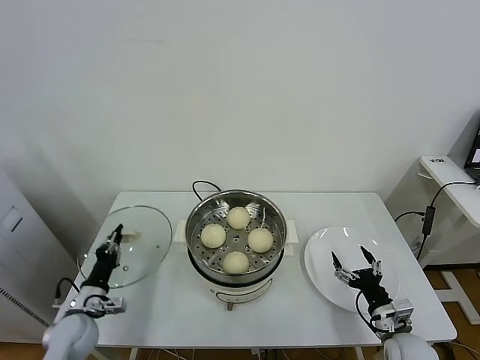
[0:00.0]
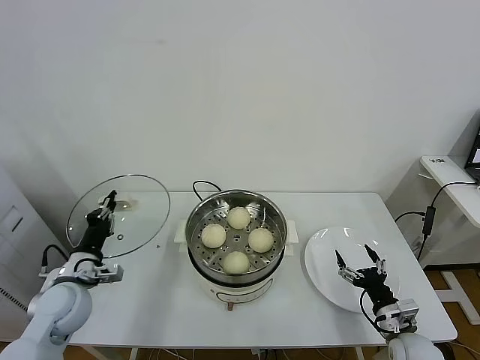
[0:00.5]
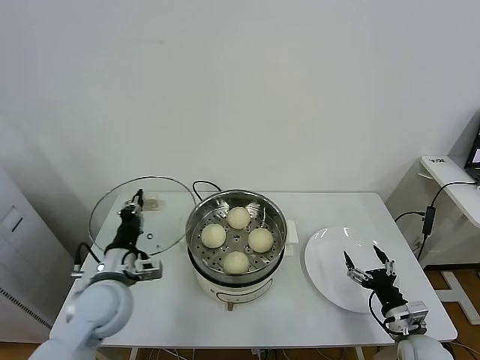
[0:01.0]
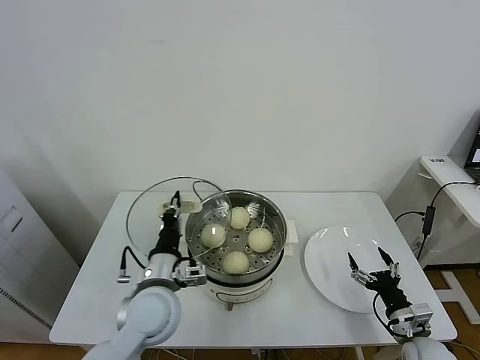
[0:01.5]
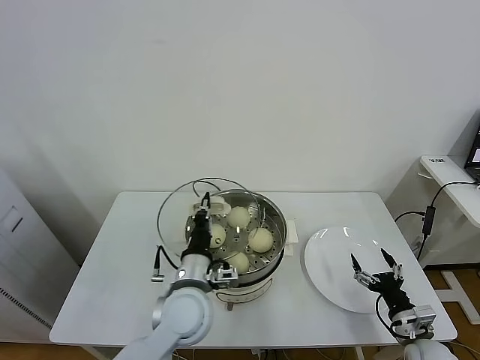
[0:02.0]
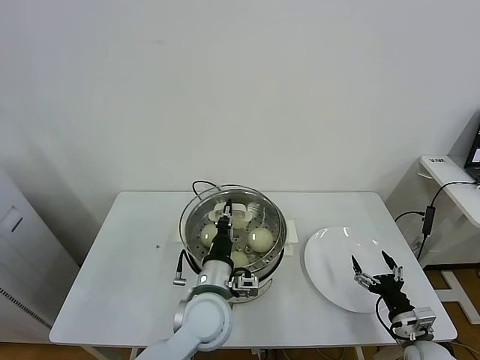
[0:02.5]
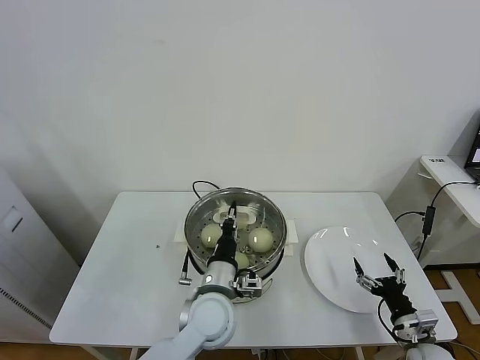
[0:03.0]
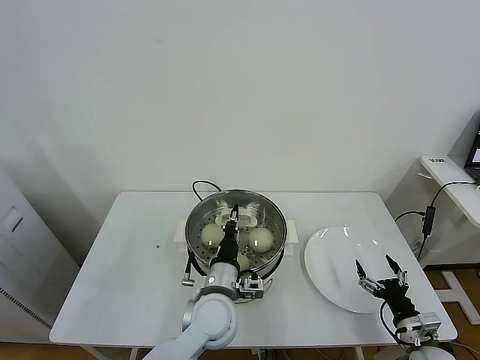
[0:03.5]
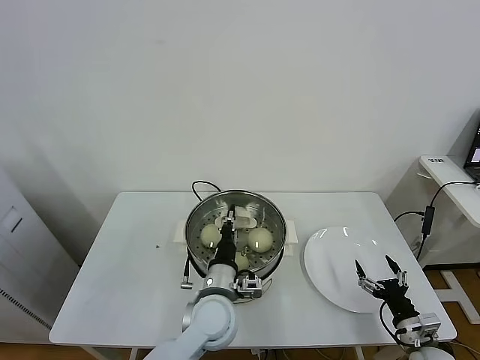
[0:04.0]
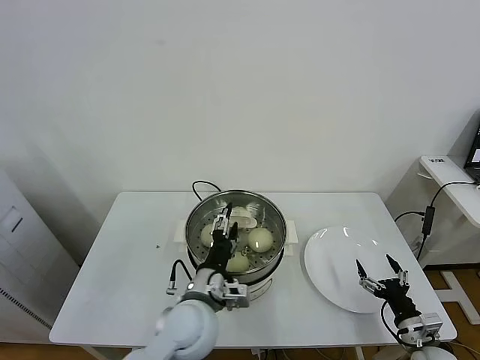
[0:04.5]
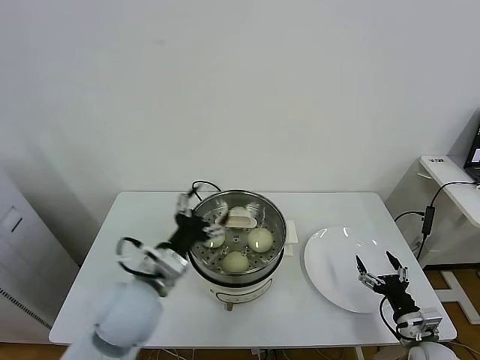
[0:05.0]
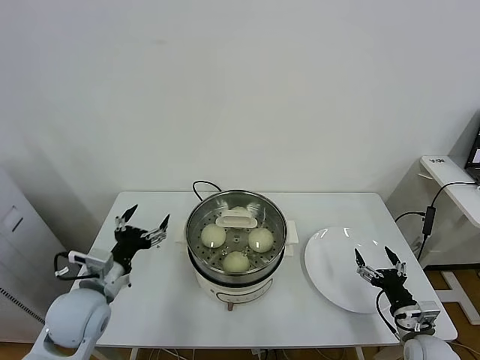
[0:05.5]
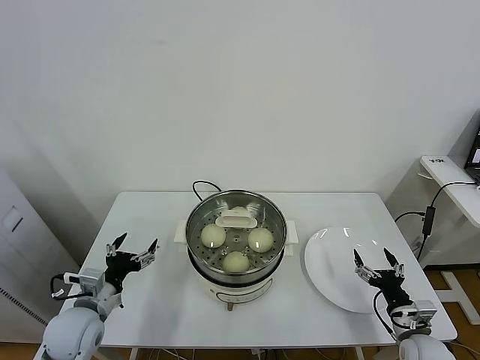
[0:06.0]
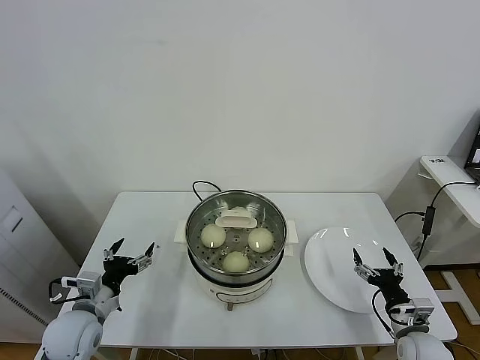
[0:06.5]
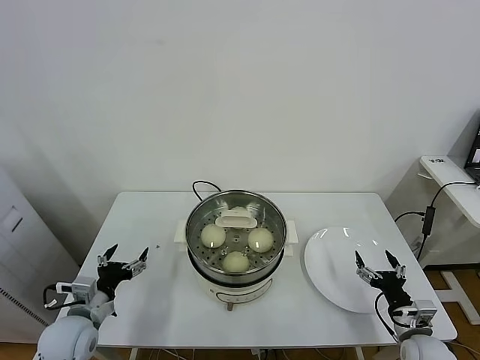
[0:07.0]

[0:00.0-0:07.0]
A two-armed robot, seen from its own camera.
Task of the whole recording: take steamed baozi put them in steamer.
Step, 0.0 to 4.5 s: Place the pot lid on the steamer with left gripper.
0.0 to 2.0 s: The left gripper goes some 30 cm to the right and upward.
2.0 to 3.5 s: The left gripper ends up roughly 5 cm from where it was.
3.5 to 5.0 s: The left gripper travels to the left and upward by some 15 cm, and opens up.
5.0 to 7.0 s: The left gripper shifts roughly 20 cm to the left and downward.

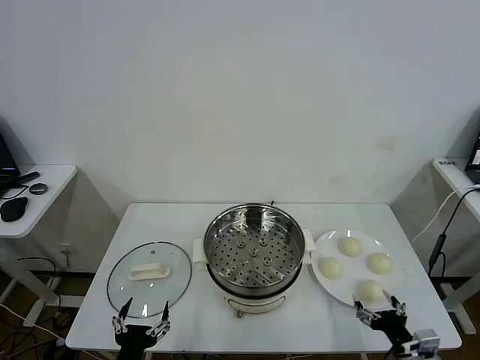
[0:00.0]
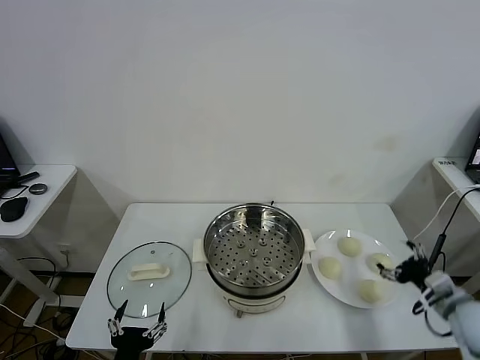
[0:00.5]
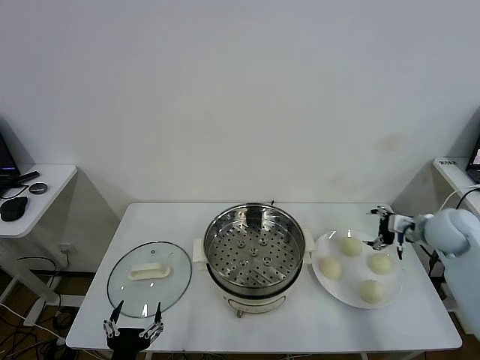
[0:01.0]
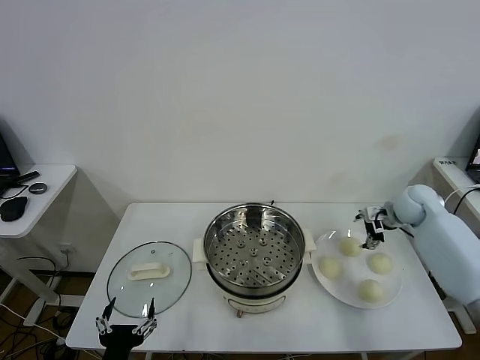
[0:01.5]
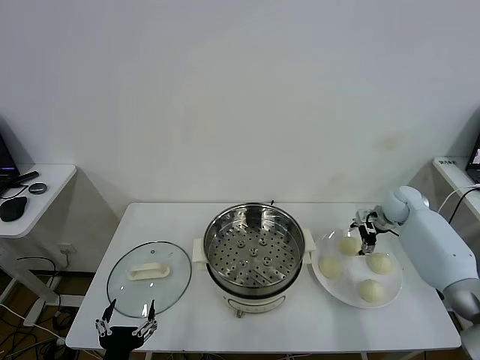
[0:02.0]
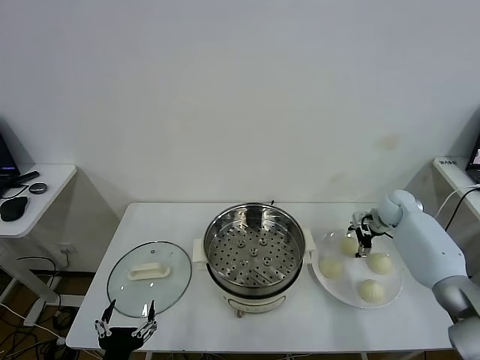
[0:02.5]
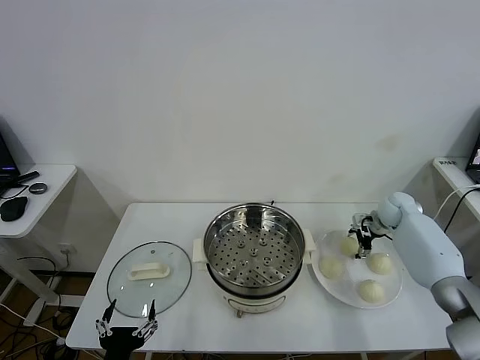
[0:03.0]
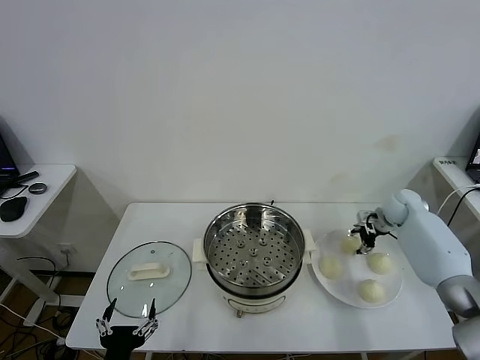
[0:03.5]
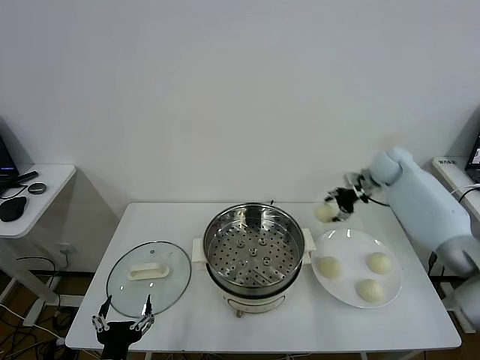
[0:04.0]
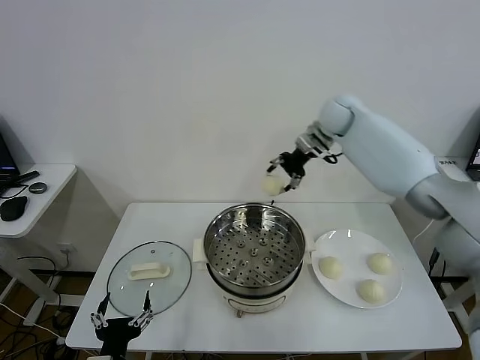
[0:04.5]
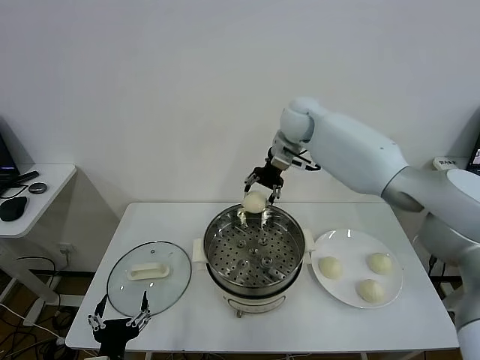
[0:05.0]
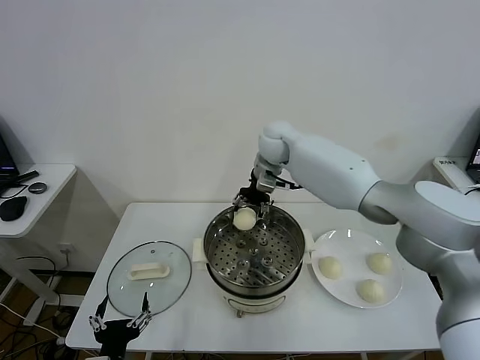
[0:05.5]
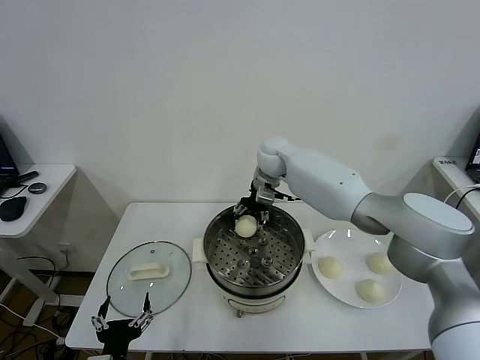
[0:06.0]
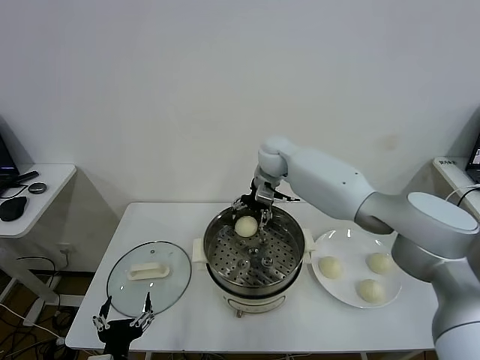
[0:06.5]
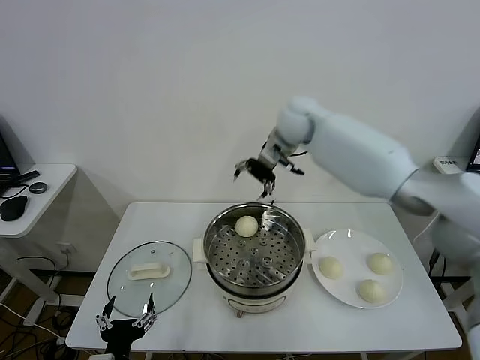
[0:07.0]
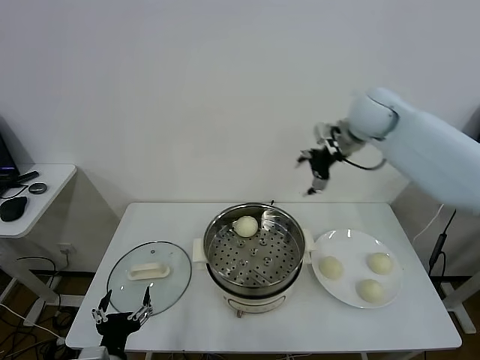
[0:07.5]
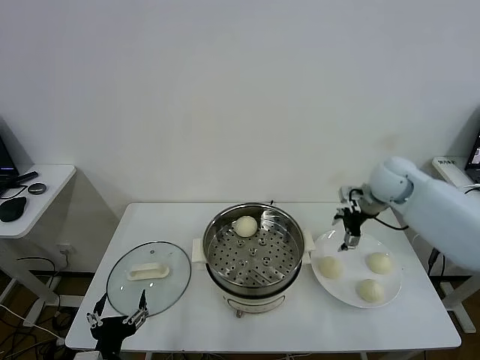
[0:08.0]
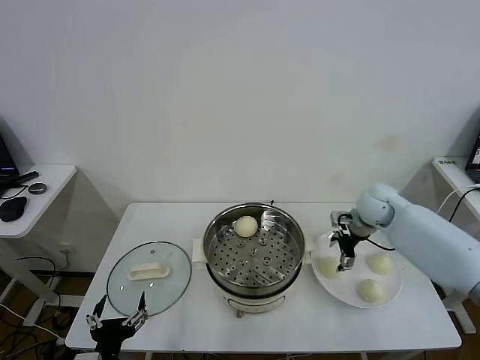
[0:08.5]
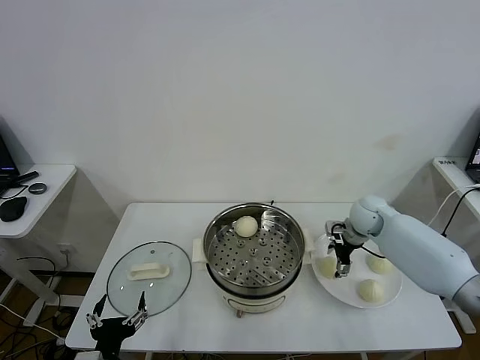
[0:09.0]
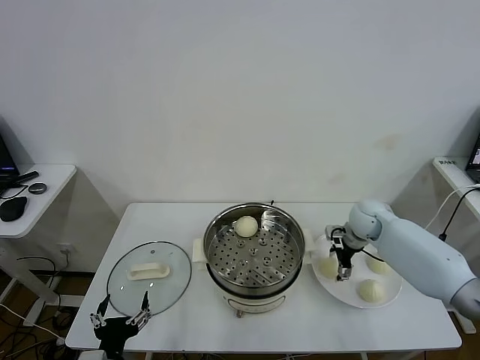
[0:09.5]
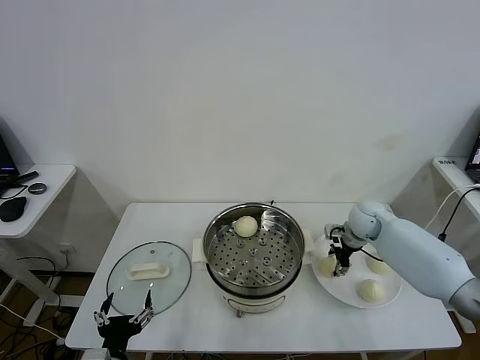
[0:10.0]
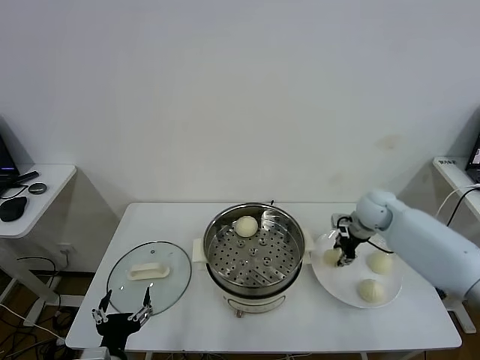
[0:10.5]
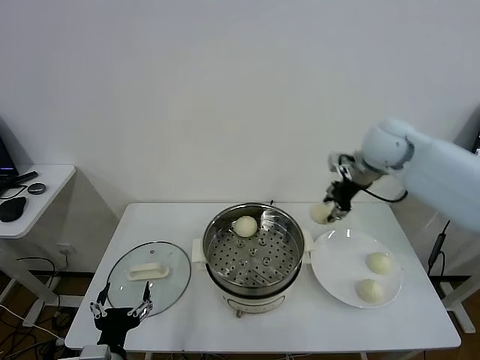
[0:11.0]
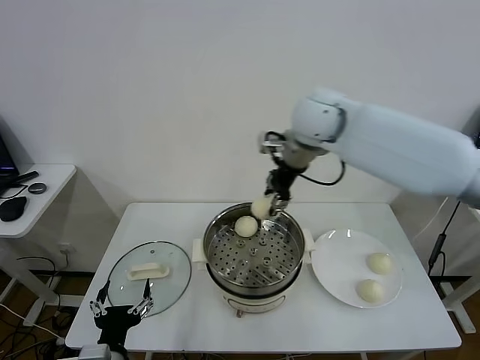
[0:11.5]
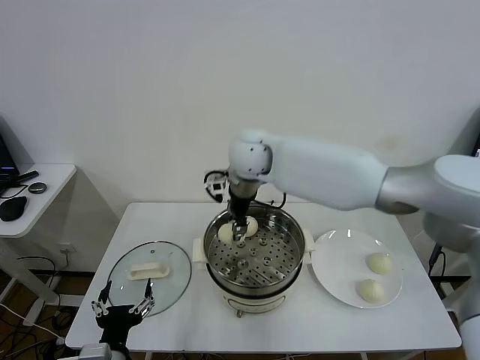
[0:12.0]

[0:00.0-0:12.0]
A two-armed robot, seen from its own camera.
Task of the whole recording: take steamed baozi put them in steamer.
Step, 0.0 to 3.0 s: Grasp the baozi in the plate with right gripper.
Step, 3.5 to 6.5 s: Place the baozi on the steamer with right gripper.
Step, 7.0 to 9.5 s: Grasp the baozi in the plate with right gripper.
2.0 to 4.0 s: The right gripper moves upward, to the left and forward, approximately 20 cm, and closes up.
4.0 to 6.0 s: The right gripper shifts some 25 cm to the left.
6.0 to 8.0 s: The right gripper travels to the right by about 25 cm, and opens up.
8.0 to 10.0 s: The right gripper heads downward, covering roughly 10 cm, and closes its fingers.
10.0 to 12.0 s: The right gripper heads to the left and upward, covering about 35 cm.

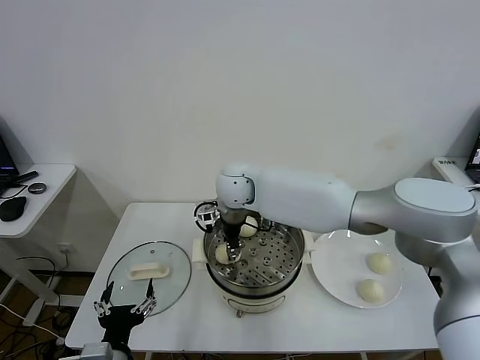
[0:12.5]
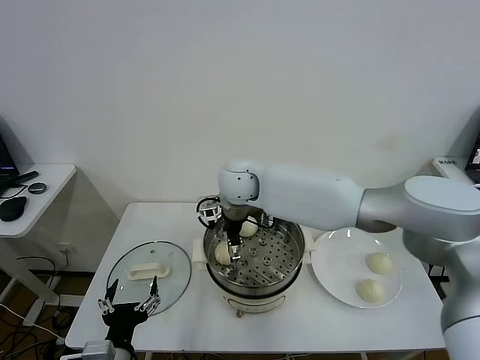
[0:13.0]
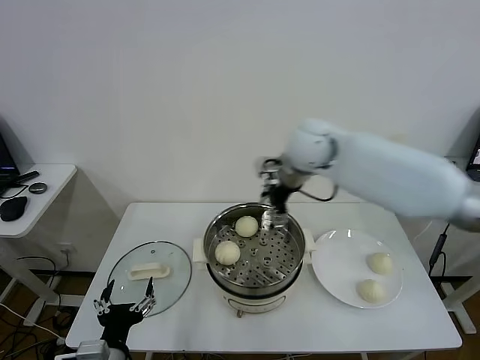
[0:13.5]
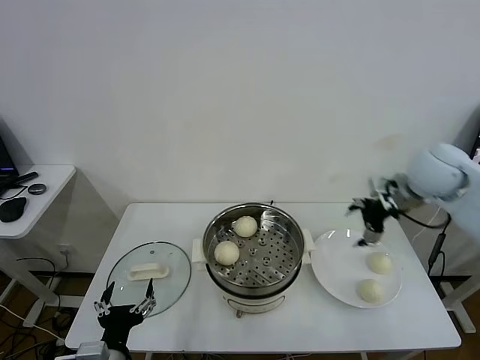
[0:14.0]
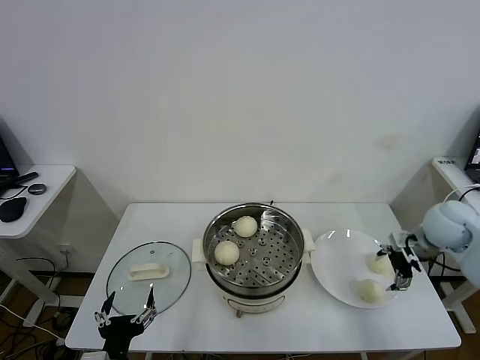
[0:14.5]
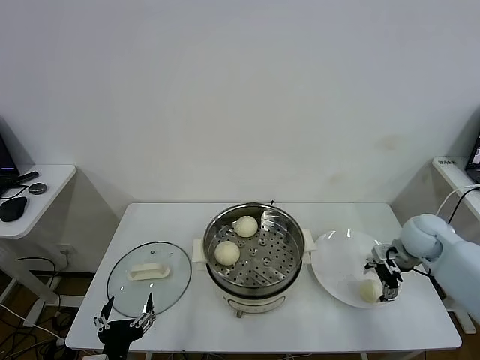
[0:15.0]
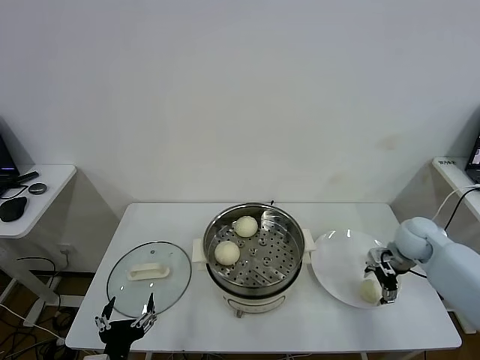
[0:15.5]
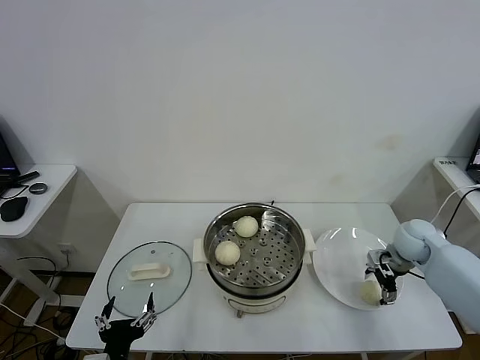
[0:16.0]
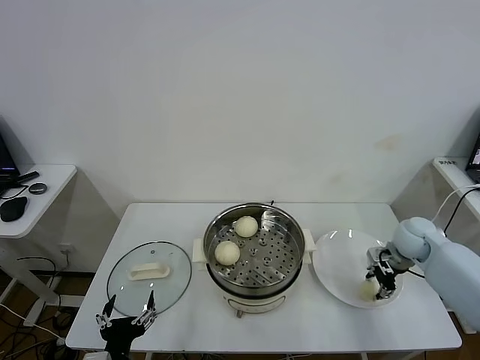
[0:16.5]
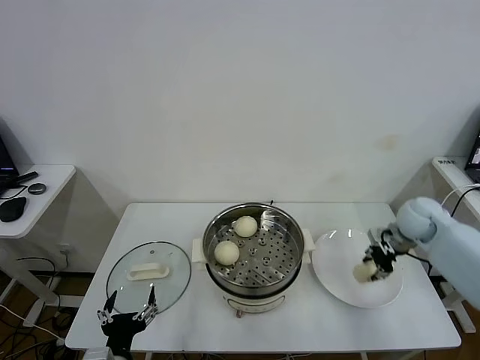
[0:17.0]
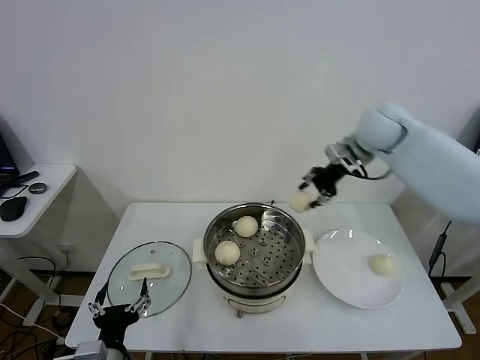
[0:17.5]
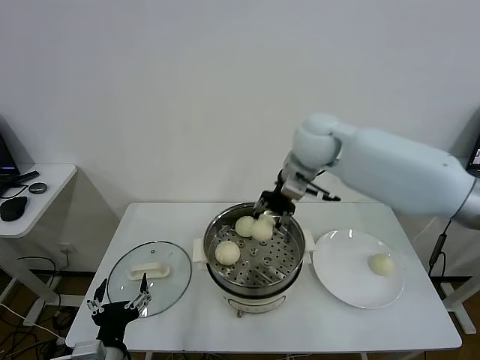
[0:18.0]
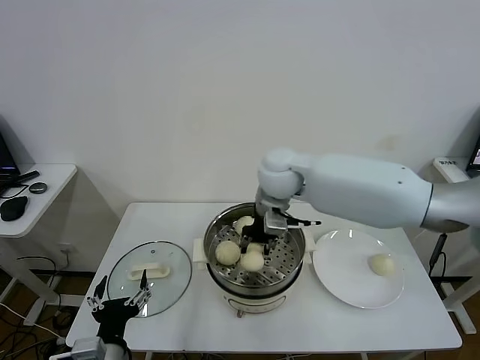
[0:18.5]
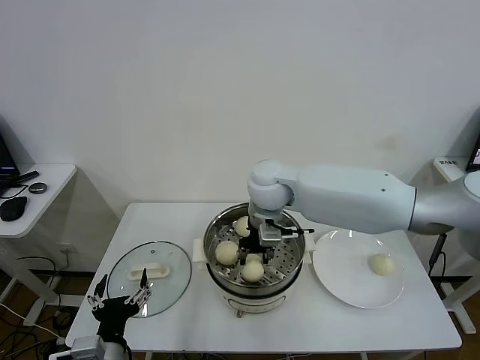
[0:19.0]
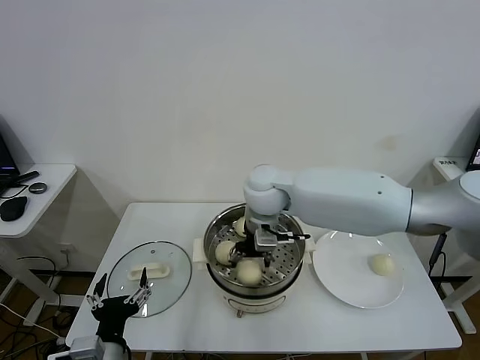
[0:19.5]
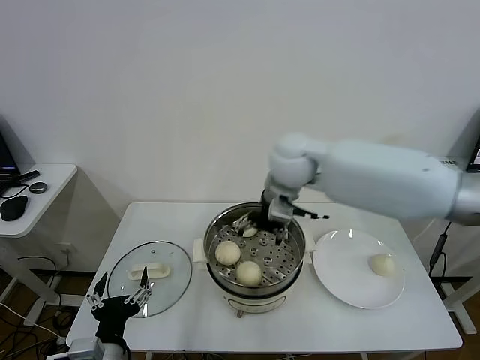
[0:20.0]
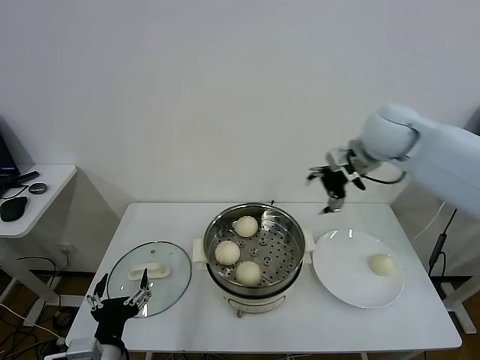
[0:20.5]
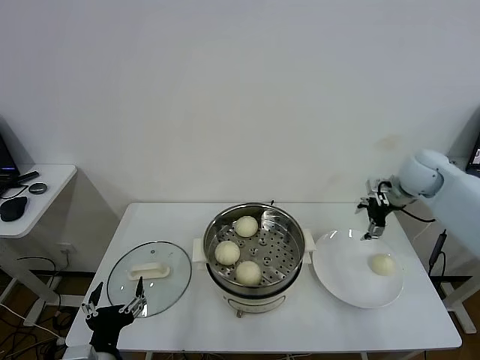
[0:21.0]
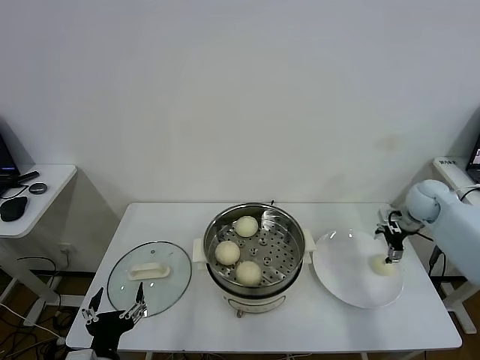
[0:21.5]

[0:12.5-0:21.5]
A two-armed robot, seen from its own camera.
Task of the whole recording: take steamed baozi put them in steamer.
Step, 13.5 to 16.0 s: Grasp the baozi in the plate with right gripper.
Step, 16.5 to 19.5 s: Place the baozi on the steamer with right gripper.
12.5 to 14.5 s: The right gripper travels to the right by some 50 cm, and opens its fingers.
14.5 to 17.0 s: The right gripper shifts some 5 cm forward, moves about 10 cm downward and comes back, and closes its fingers.
17.0 to 19.5 s: The right gripper shifts about 35 cm to the left, and opens up.
19.5 to 21.5 s: The right gripper is displaced to the right by approximately 40 cm.
